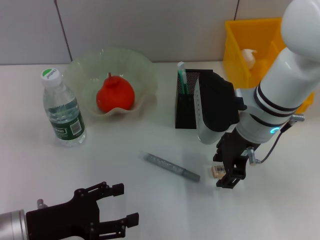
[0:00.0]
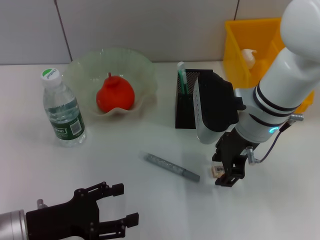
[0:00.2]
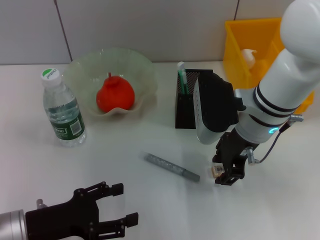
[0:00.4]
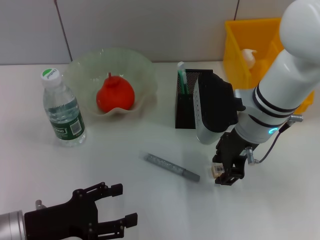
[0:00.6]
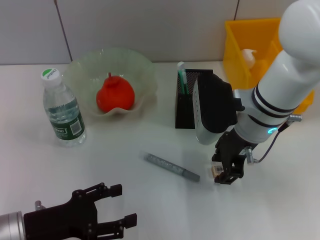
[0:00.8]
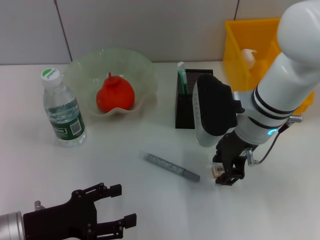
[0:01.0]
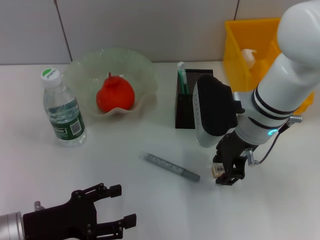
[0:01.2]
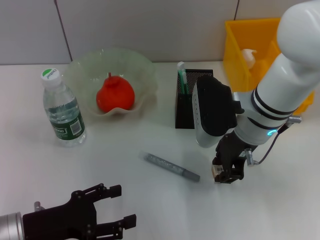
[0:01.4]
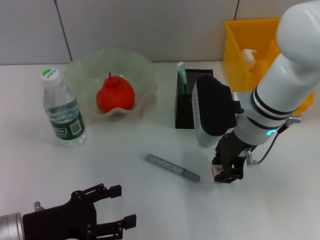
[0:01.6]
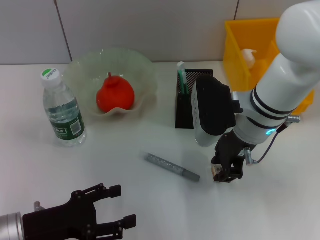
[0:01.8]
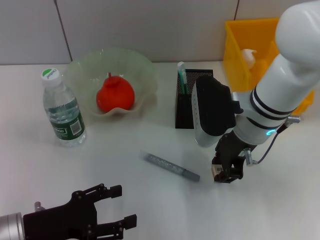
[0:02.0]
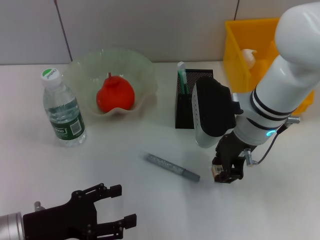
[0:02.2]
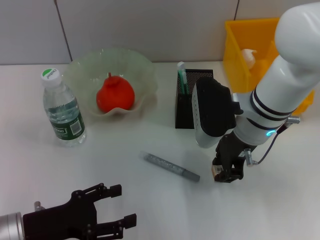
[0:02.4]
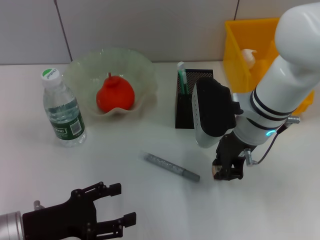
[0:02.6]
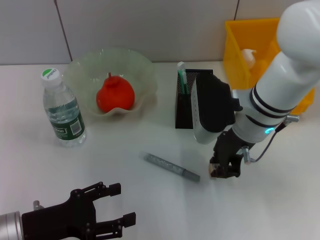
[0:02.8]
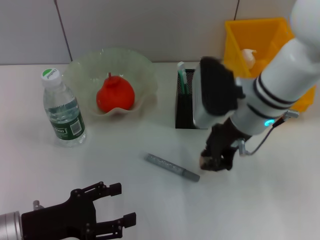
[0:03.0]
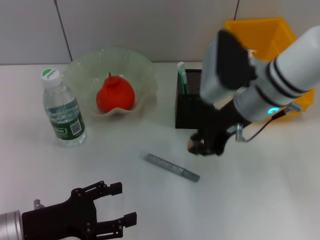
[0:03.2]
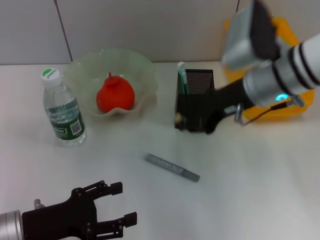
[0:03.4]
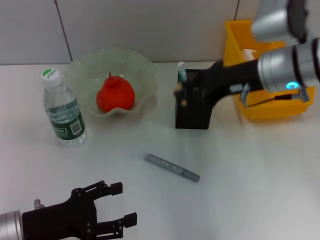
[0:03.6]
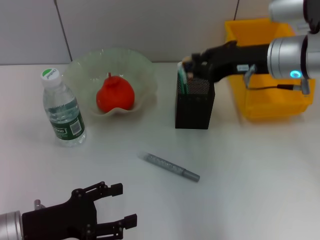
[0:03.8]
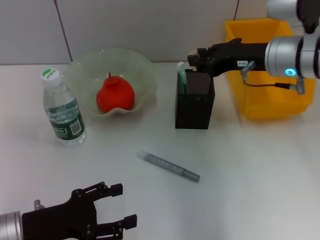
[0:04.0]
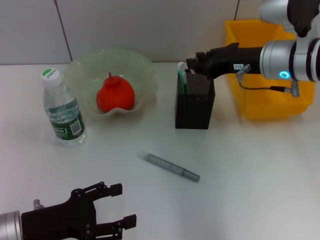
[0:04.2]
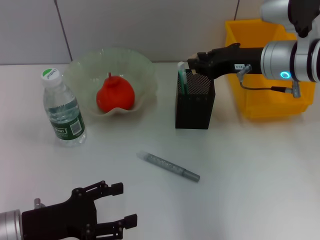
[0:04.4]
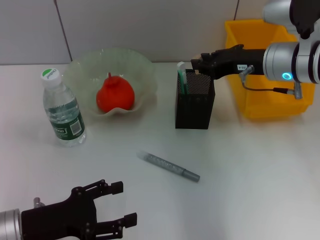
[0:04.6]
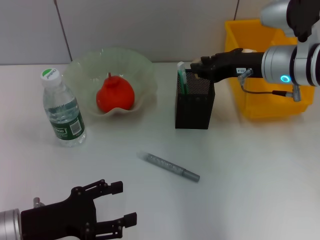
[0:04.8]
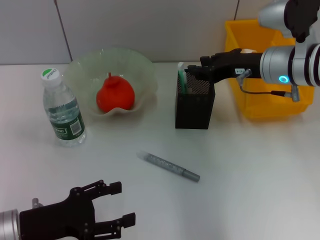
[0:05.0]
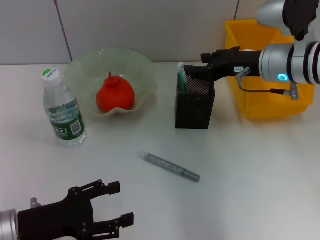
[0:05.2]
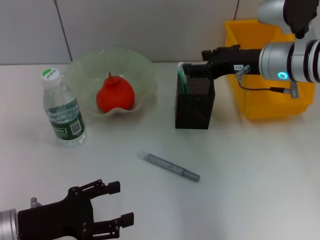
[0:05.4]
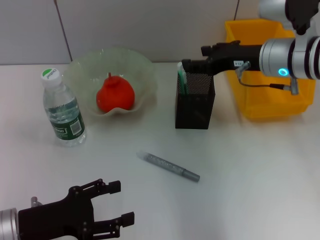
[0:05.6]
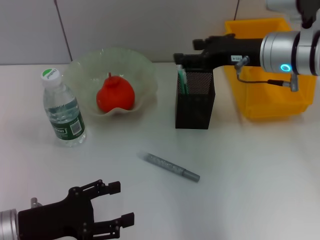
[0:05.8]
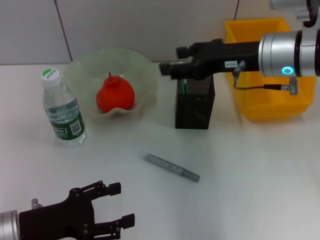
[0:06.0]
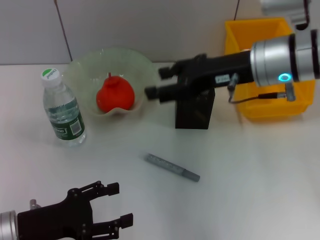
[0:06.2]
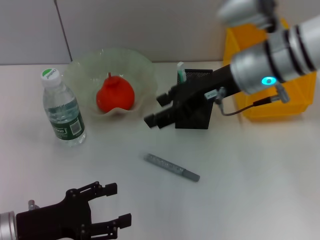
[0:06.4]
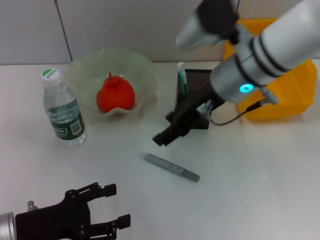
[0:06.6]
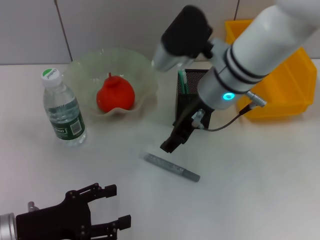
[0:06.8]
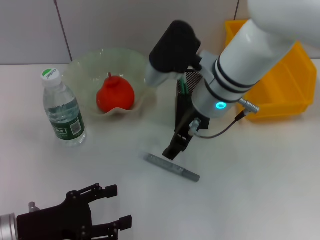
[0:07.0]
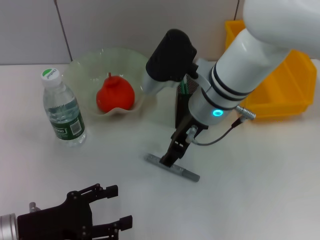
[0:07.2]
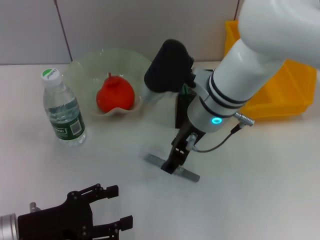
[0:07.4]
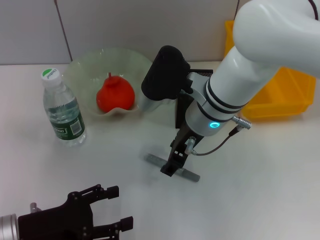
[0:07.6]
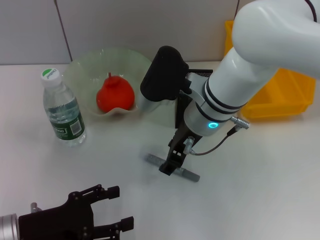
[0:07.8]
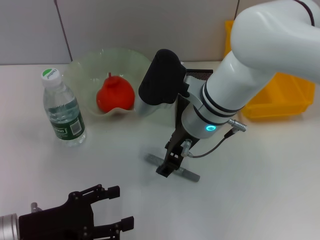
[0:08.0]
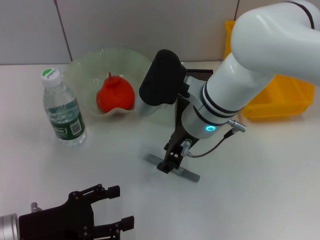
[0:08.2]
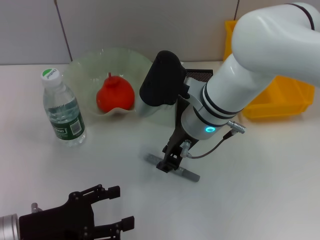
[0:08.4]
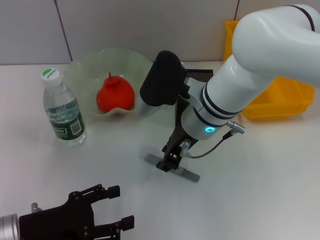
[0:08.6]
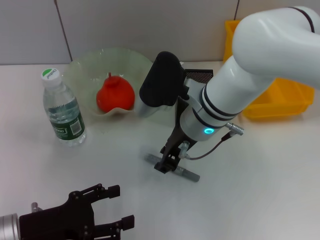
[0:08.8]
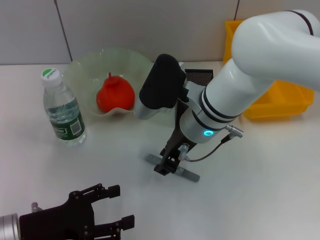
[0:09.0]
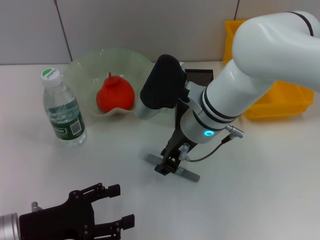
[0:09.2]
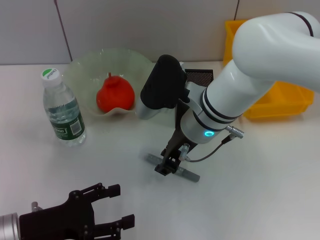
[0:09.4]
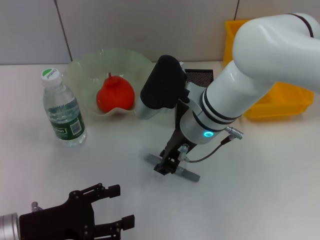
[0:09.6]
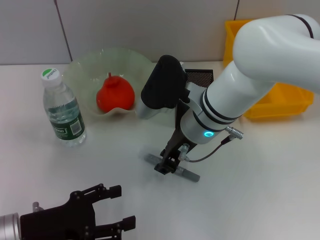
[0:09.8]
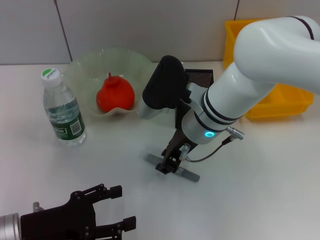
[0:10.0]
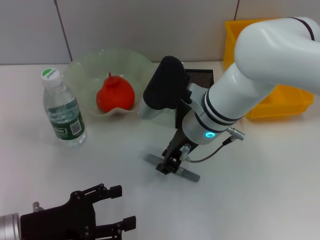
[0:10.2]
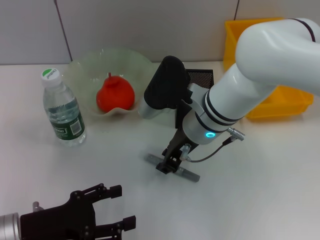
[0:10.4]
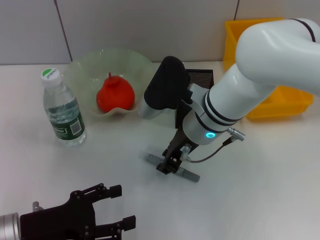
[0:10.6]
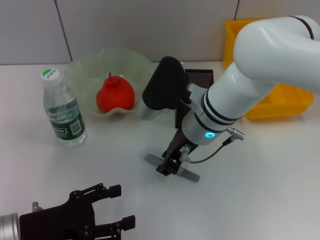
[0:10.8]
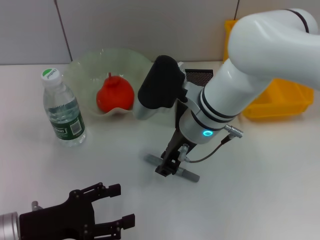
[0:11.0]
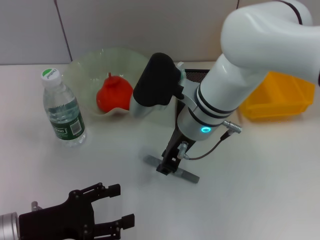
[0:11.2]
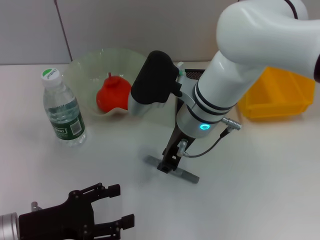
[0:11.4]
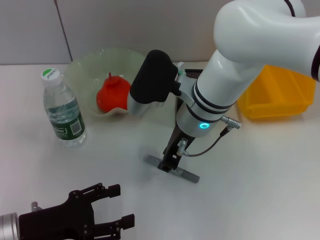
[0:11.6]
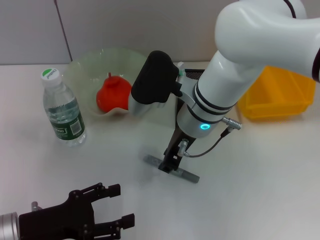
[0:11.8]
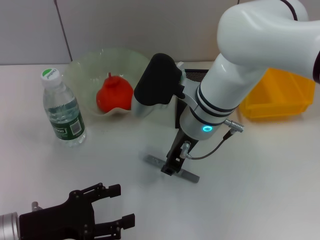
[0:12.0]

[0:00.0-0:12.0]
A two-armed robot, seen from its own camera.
Step, 0:00.0 to 0:02.4: Grab the eraser with the right hand.
Step, 0:02.6 to 0:05.2: Put the eraser into the pen holder with the right hand.
0:00.0 to 0:01.6: Neither gripper changes place.
0:01.6 to 0:03.0: The grippers stay close to where they were, moving slightly.
0:03.0 to 0:04.4: The right gripper heads to the right, covering roughly 5 cm.
0:04.4 to 0:06.0: The right gripper opens up.
0:06.0 to 0:07.6: The right gripper travels to the left and downward by approximately 10 cm.
0:07.6 to 0:09.0: The right gripper closes.
0:09.0 to 0:10.4: Both grippers stay put.
0:10.4 to 0:12.0: The grippers make only small movements.

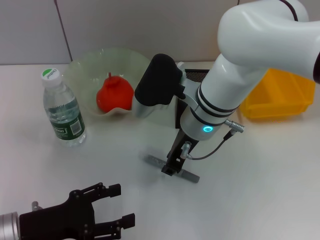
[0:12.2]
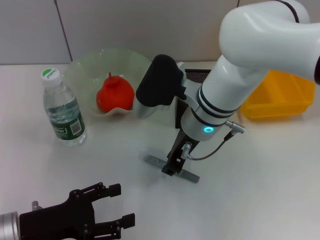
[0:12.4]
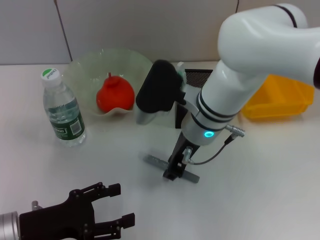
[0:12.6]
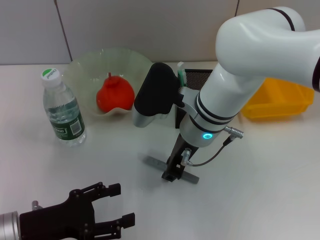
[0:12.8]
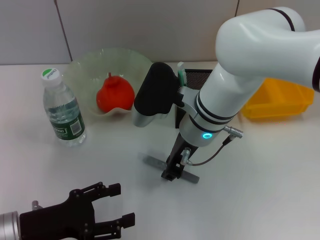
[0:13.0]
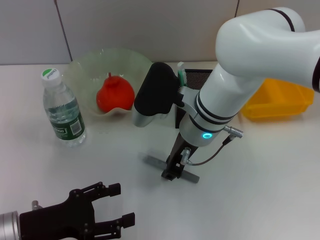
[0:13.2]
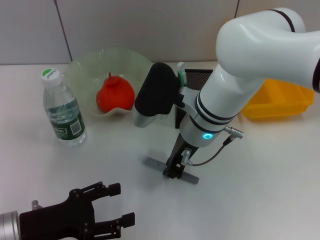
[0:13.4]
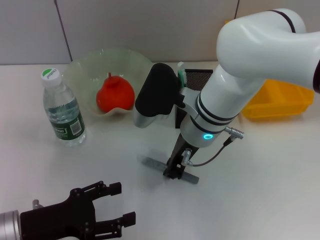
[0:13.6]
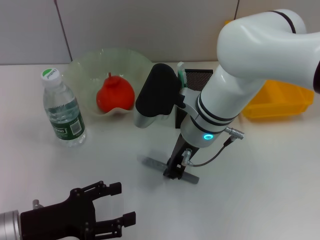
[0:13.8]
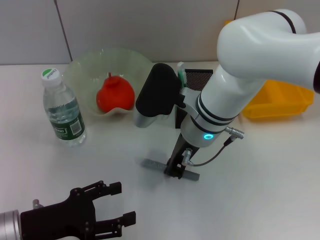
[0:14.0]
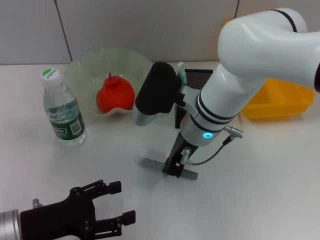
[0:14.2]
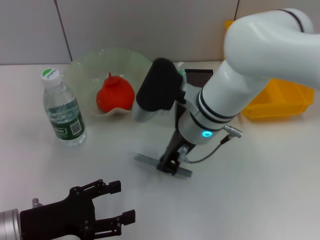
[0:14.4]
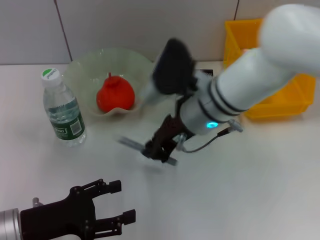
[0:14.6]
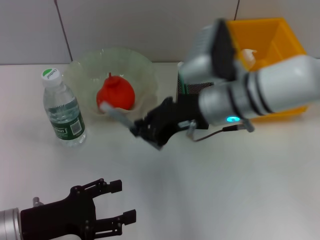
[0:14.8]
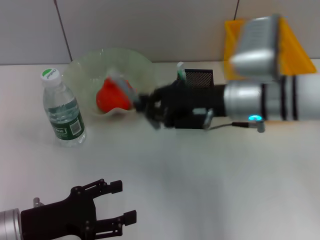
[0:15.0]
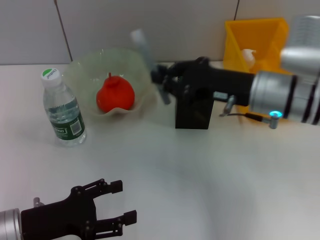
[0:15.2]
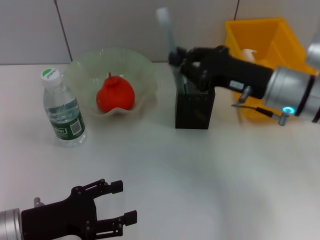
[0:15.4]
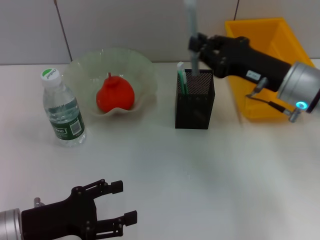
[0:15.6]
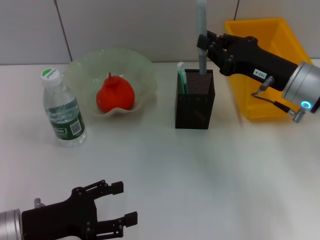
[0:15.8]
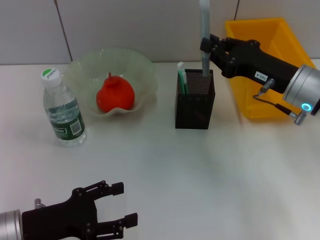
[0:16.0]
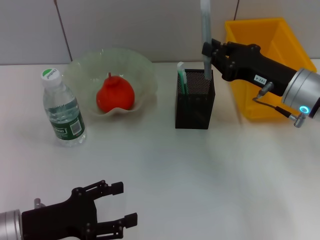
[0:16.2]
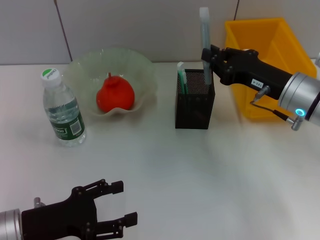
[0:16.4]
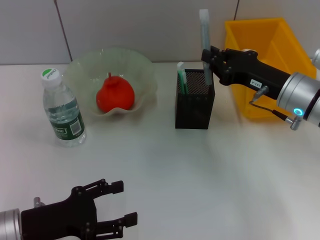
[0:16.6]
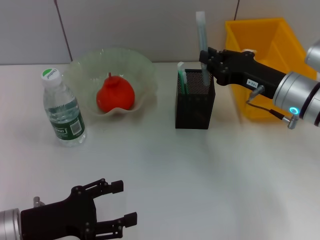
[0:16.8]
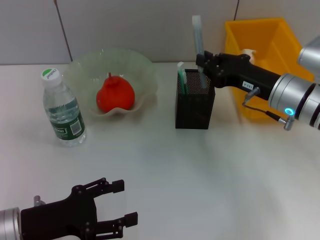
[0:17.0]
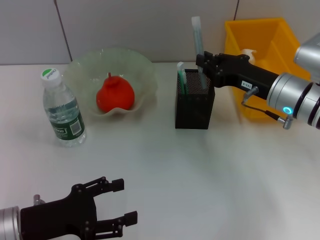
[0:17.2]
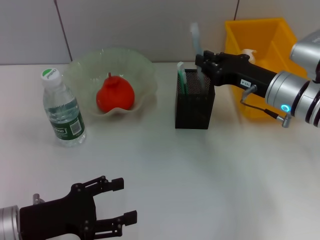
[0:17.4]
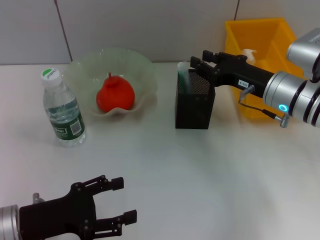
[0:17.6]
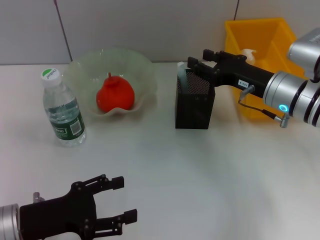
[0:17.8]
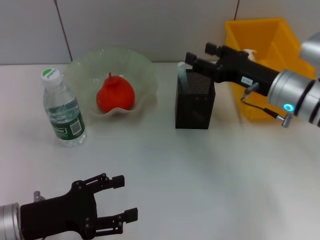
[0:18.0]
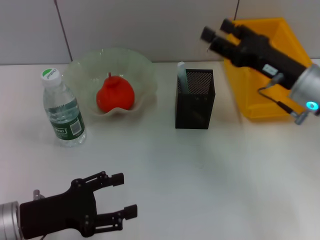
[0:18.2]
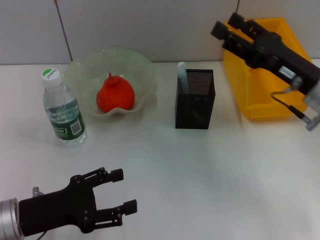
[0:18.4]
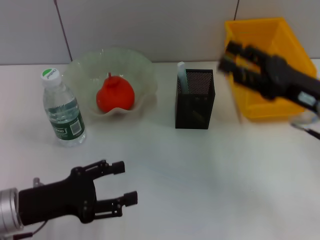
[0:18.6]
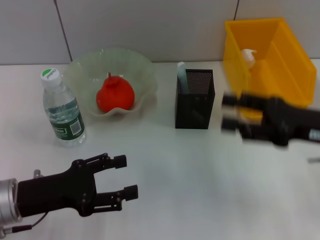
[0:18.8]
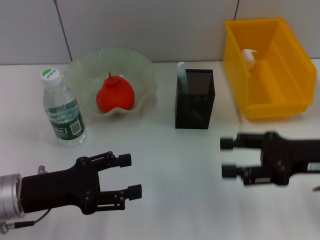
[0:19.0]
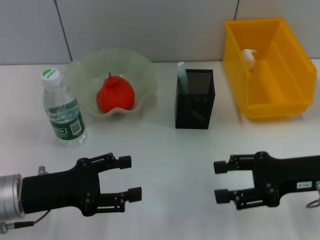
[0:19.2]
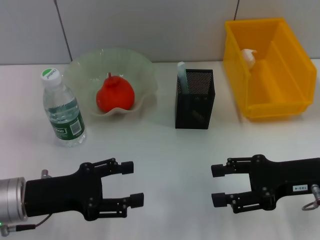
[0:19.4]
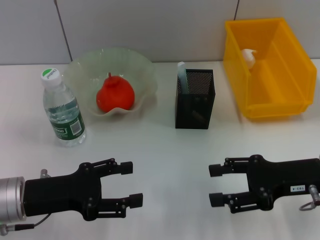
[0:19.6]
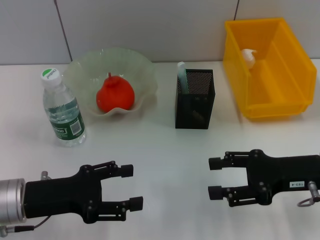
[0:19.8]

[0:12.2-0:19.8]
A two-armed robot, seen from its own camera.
Step, 0:14.2 to 0:17.6: Place the gray glue into the pen holder with the right hand.
0:12.2 to 0:13.8: Both grippers stay about where they are.
0:13.8 to 0:15.2: The right gripper travels to the right by about 10 cm.
0:15.2 to 0:16.8: The right gripper moves about 5 cm.
0:16.8 to 0:18.2: The right gripper opens.
0:18.2 to 0:19.8: The right gripper goes approximately 5 cm backward.

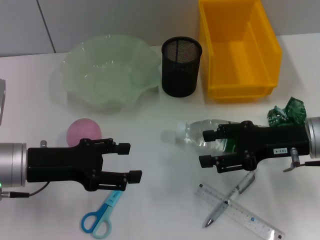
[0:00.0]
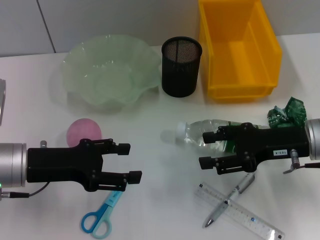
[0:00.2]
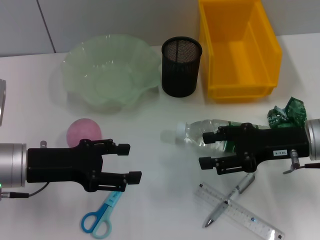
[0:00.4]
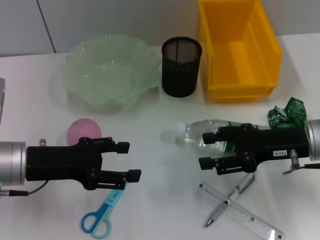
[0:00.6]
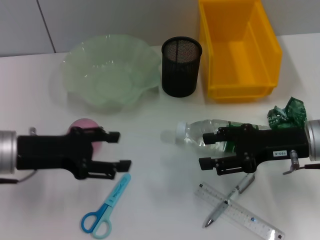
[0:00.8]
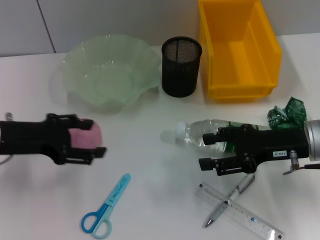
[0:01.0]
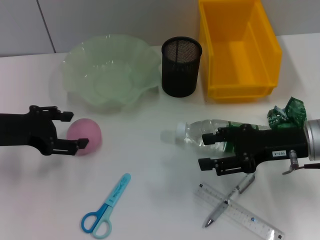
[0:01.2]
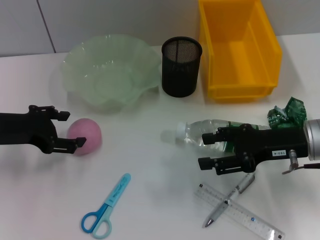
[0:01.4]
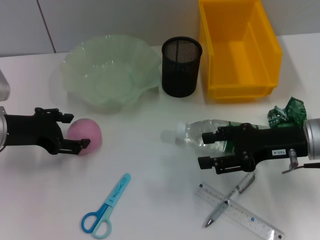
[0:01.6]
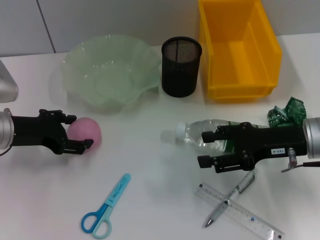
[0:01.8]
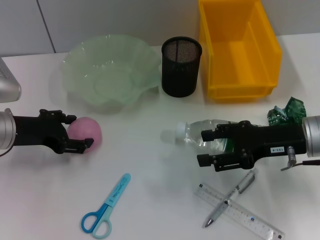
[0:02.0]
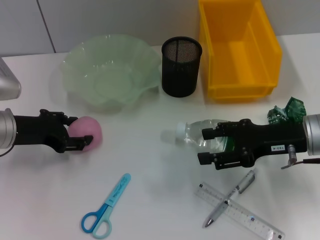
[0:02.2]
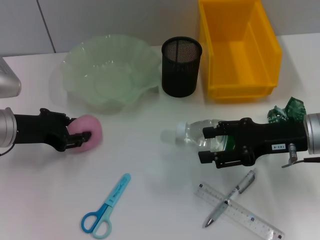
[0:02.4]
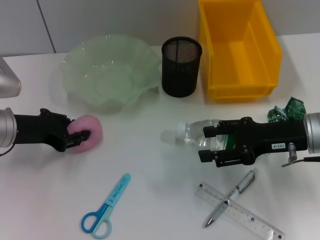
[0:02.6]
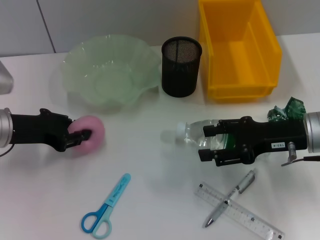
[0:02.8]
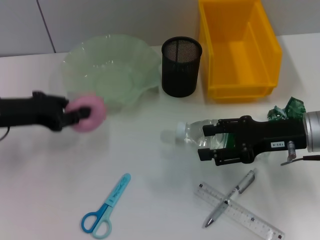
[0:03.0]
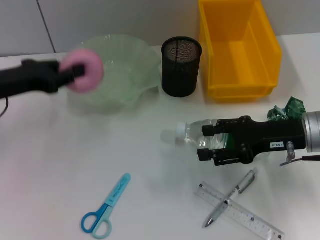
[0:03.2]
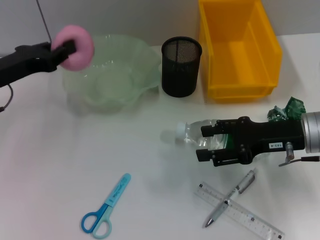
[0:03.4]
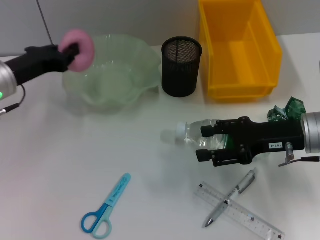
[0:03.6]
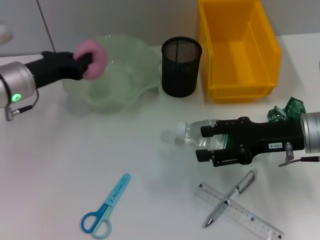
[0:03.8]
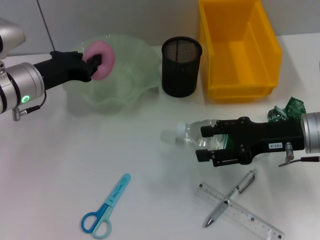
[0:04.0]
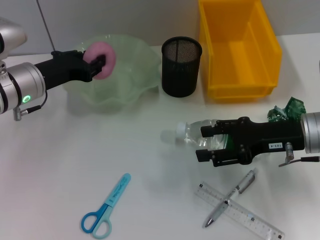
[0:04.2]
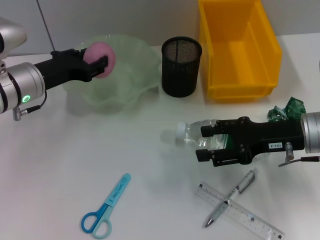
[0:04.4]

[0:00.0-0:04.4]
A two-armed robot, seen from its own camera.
Step, 0:00.0 to 0:02.4: Grab the peach with the left hand.
0:00.0 to 0:01.4: The left gripper changes place by some 5 cm.
0:01.4 to 0:03.0: The left gripper closes its fingers.
0:03.0 to 0:04.4: The left gripper travels to the right and forward by about 10 cm.
